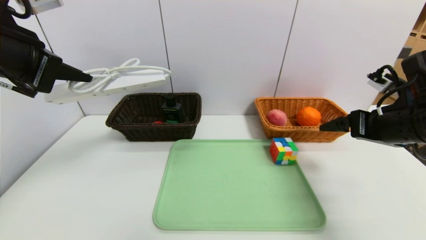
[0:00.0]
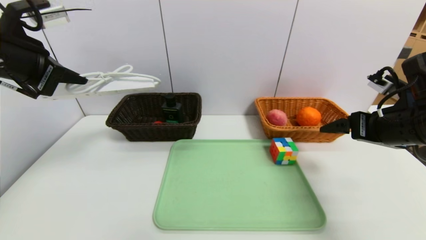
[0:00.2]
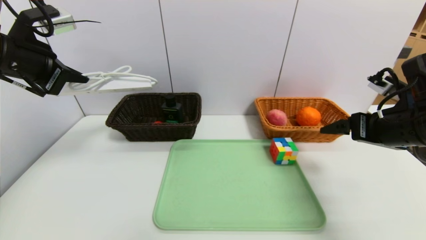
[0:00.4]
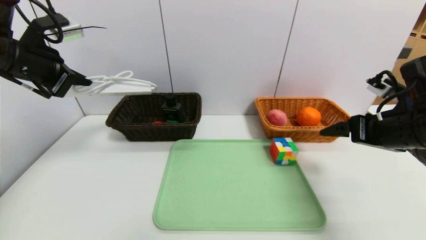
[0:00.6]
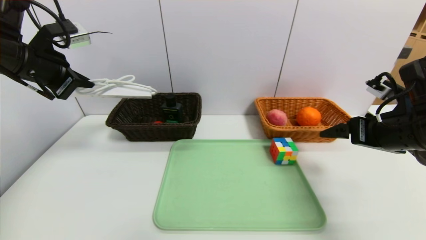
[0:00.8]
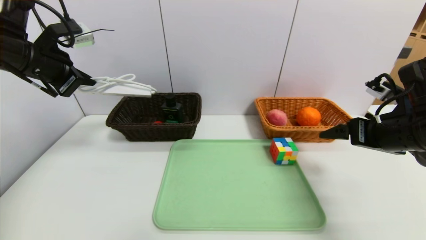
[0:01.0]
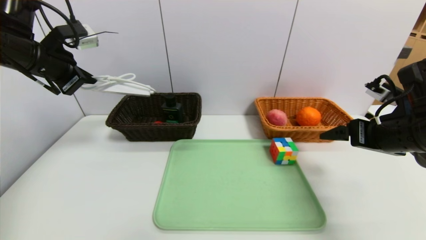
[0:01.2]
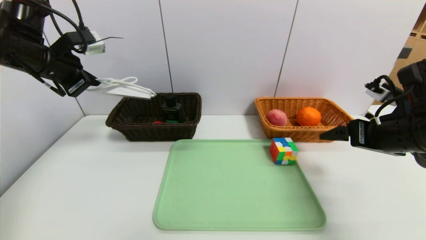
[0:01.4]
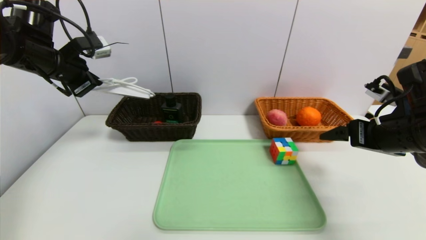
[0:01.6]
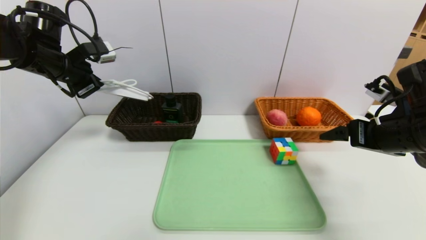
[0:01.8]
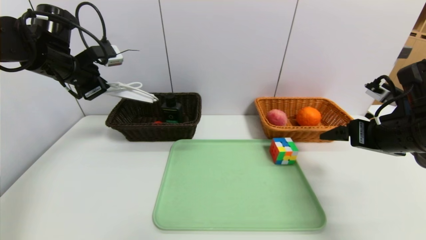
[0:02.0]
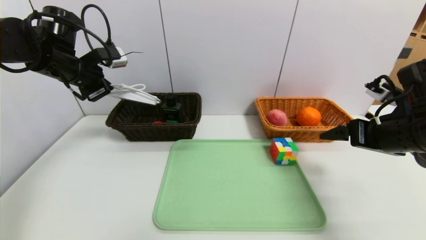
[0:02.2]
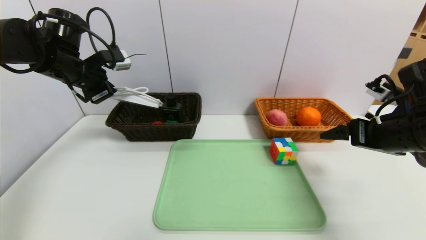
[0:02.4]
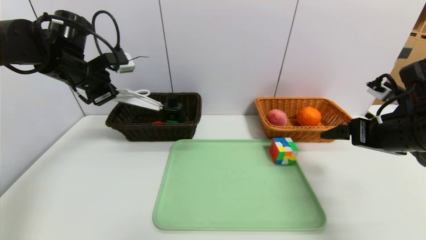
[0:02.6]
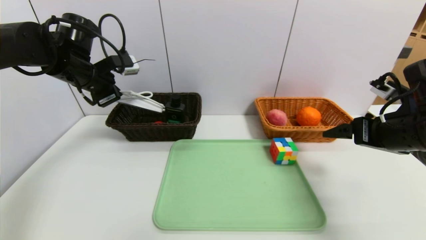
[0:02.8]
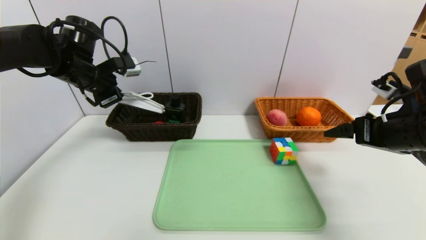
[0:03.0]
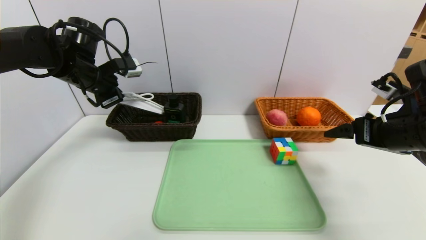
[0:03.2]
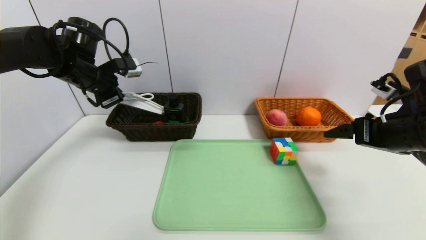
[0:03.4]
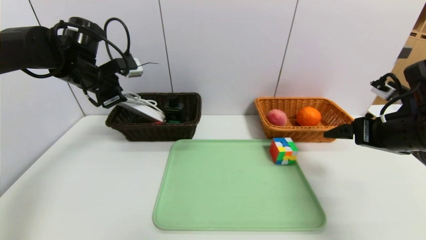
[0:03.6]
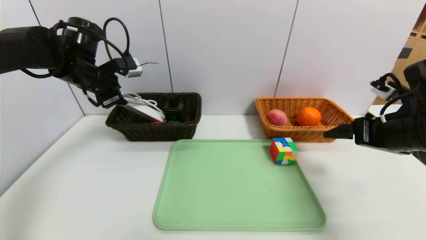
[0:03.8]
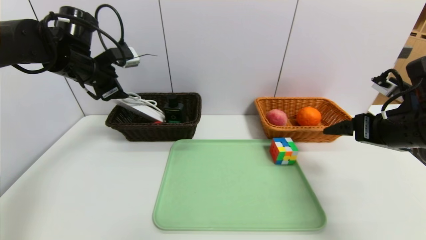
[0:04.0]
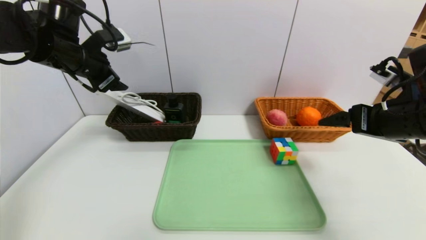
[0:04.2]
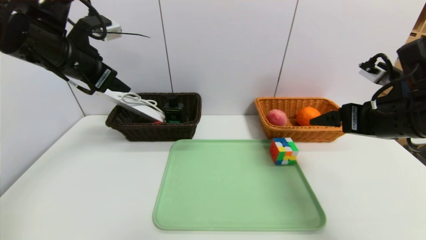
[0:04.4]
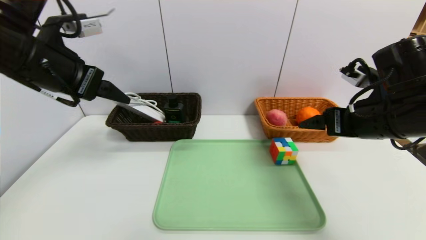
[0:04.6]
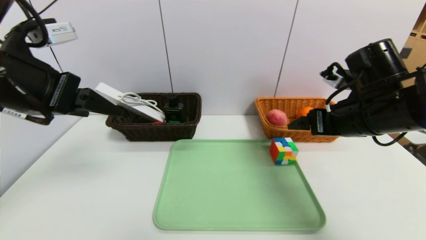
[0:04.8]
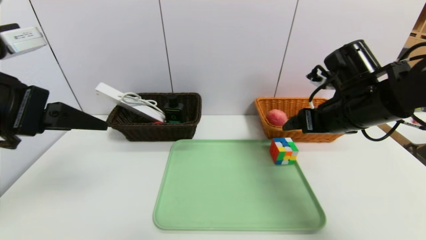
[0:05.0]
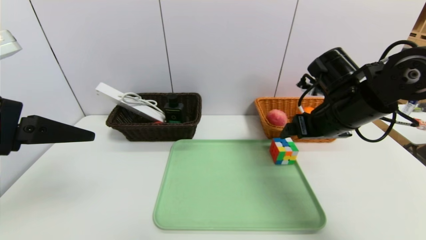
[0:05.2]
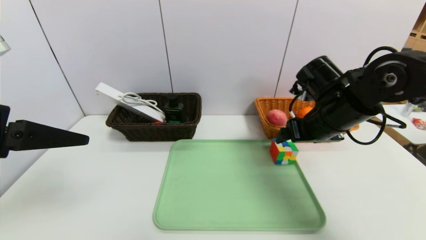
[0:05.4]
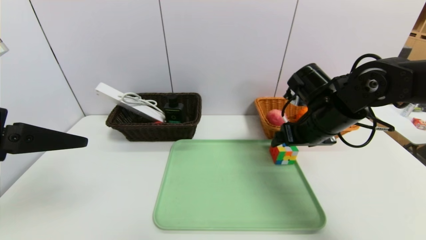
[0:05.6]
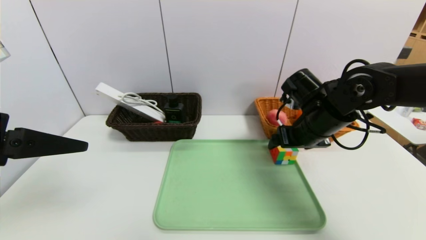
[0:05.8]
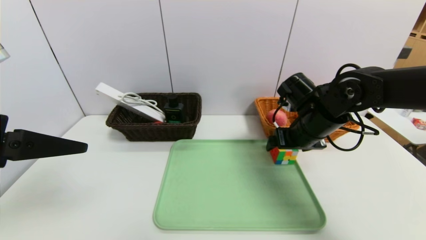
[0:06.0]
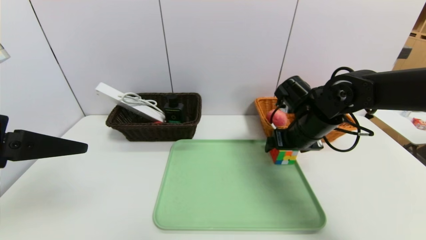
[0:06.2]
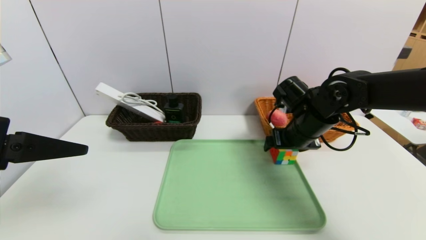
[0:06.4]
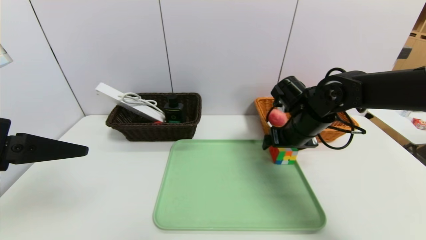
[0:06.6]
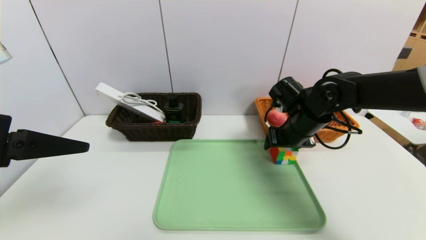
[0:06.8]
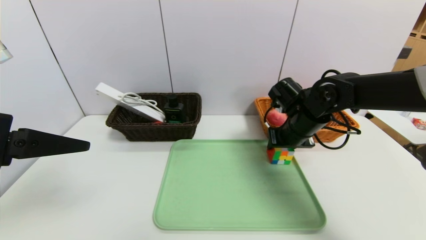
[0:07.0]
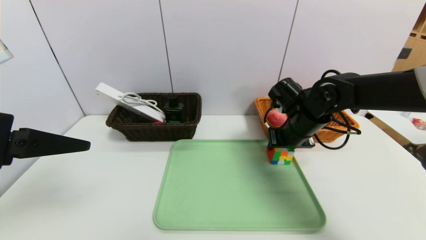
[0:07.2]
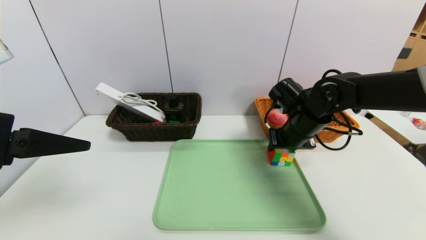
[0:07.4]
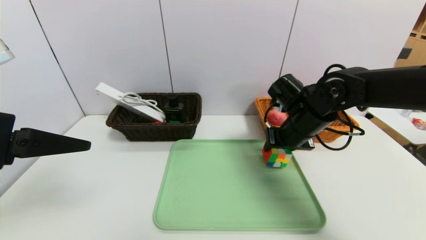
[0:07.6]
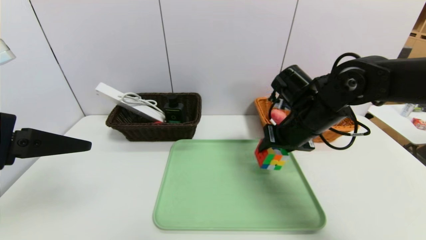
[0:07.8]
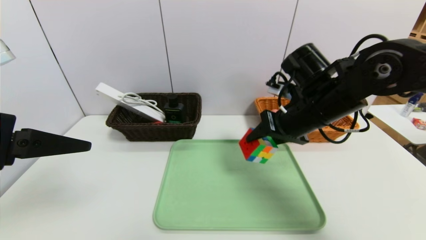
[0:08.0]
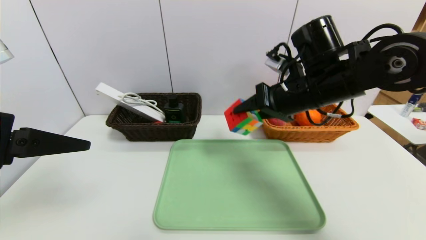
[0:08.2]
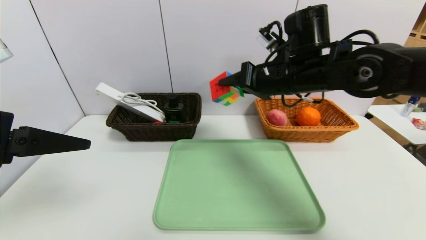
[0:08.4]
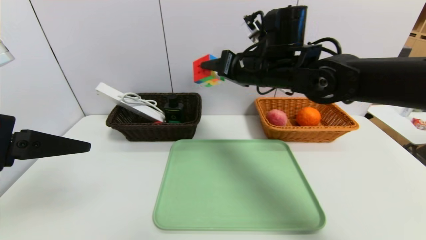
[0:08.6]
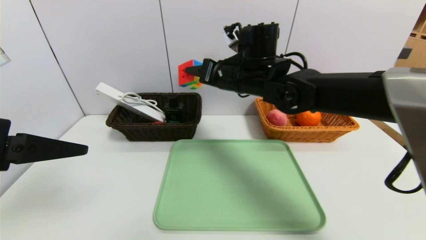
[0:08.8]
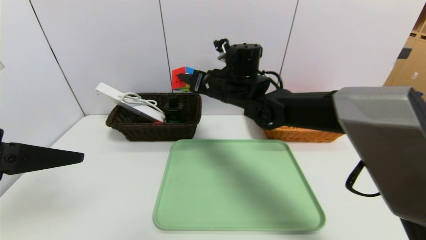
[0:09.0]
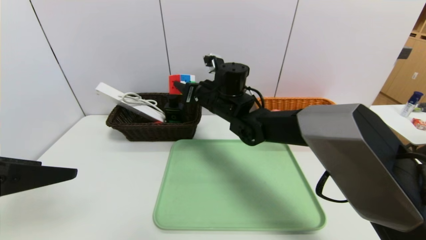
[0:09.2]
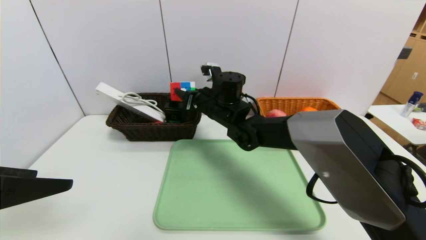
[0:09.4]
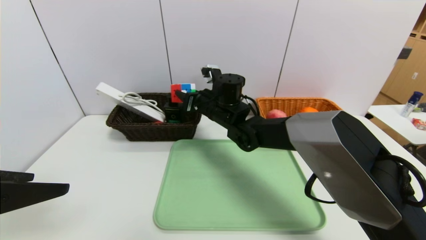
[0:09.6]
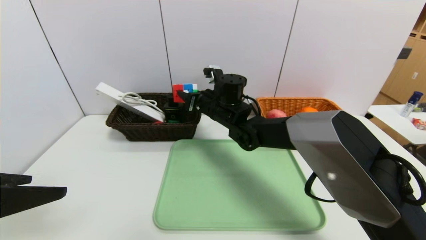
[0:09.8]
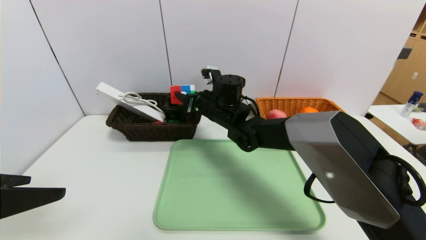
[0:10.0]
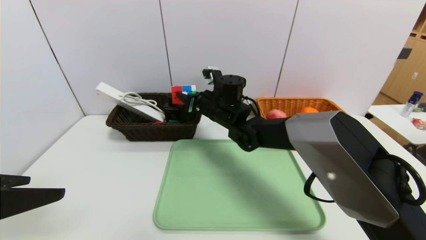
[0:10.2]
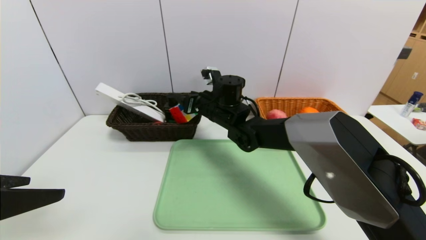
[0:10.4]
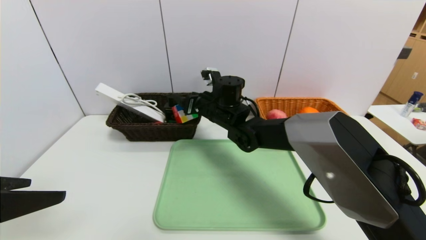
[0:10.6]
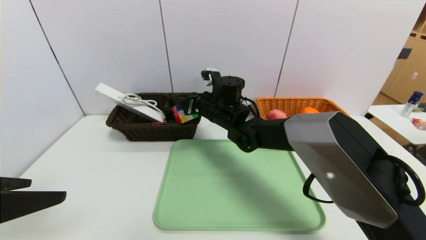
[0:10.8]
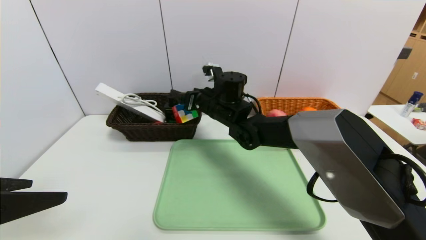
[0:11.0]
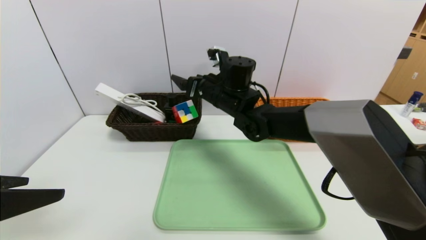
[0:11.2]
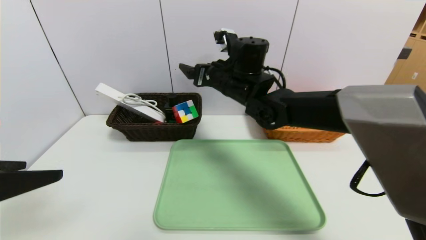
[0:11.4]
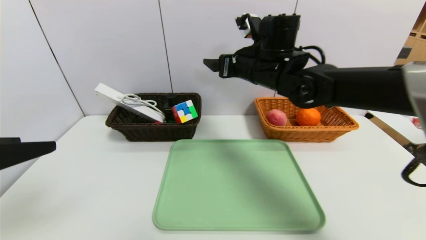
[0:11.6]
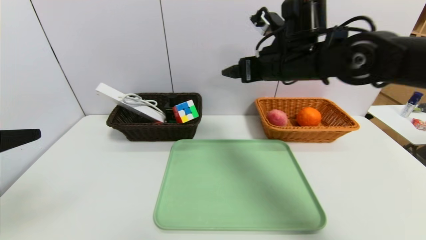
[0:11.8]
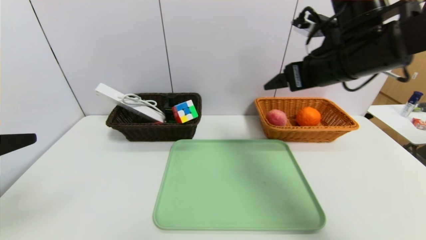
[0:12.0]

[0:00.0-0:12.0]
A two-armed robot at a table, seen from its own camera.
Task of the whole recording: place the food in the right basket with the right gripper, and place the non food items in the left basket with the left gripper.
Step, 0:00.0 to 0:03.8: Grasp the power strip and put it in the left basket.
Step, 0:04.0 to 0:10.6: Grasp the rubiks cube and put it in the left basket.
0:00.0 to 0:01.6: The left gripper is displaced forward by some 15 cm.
0:01.6 to 0:03.0: The left gripper ends up approximately 5 cm from where it was.
0:03.0 to 0:04.4: The left gripper goes some 10 cm backward and upward, and opens up.
0:04.4 to 0:06.0: The left gripper shifts some 20 cm backward; the right gripper is displaced forward, to the left and downward by some 15 cm.
0:06.0 to 0:07.6: The right gripper closes.
0:07.6 to 0:09.0: The right gripper shifts roughly 15 cm to the left.
0:09.0 to 0:10.4: The right gripper moves downward, roughly 5 cm.
0:10.4 to 0:12.0: The right gripper heads to the right, upward and backward, covering some 30 cm, and opens its fingers.

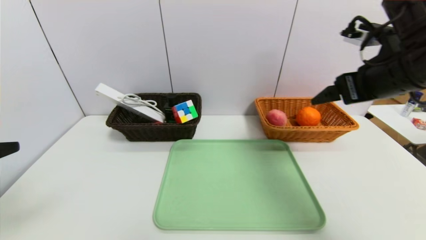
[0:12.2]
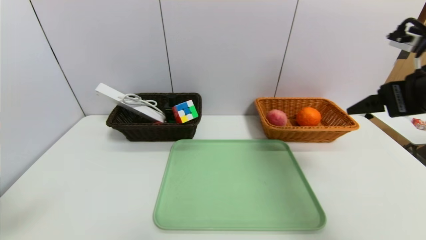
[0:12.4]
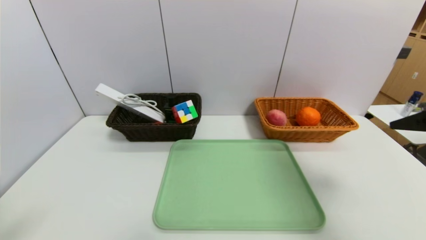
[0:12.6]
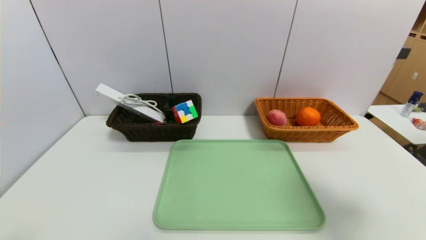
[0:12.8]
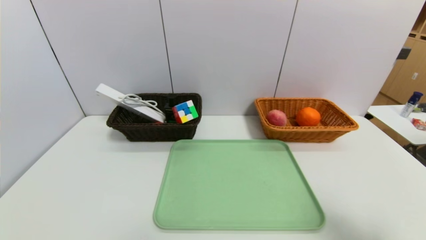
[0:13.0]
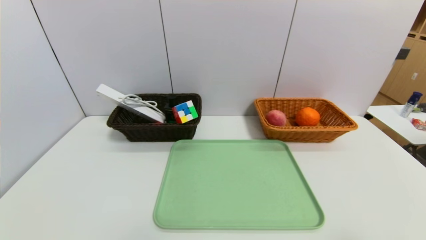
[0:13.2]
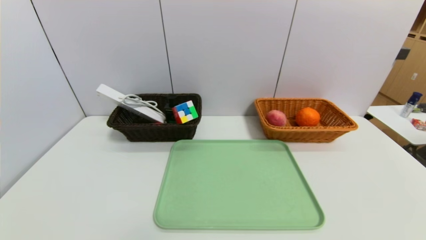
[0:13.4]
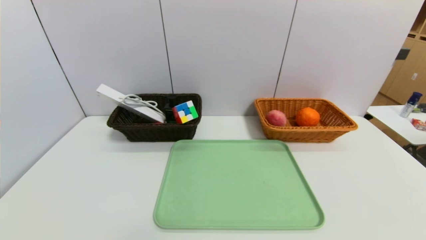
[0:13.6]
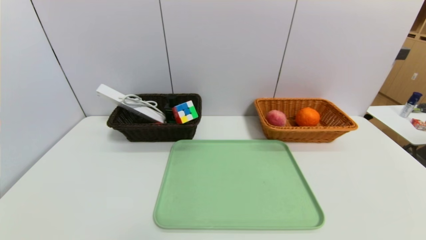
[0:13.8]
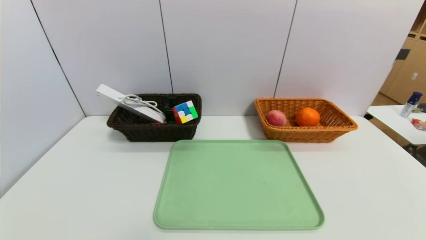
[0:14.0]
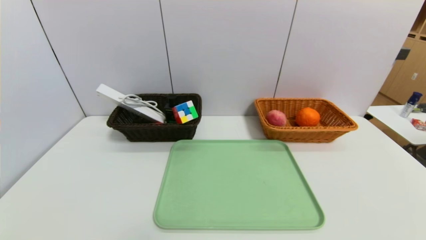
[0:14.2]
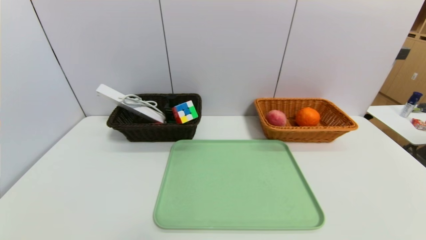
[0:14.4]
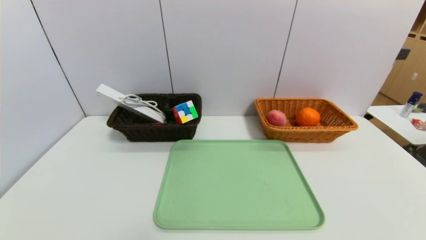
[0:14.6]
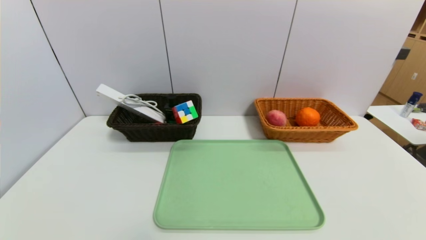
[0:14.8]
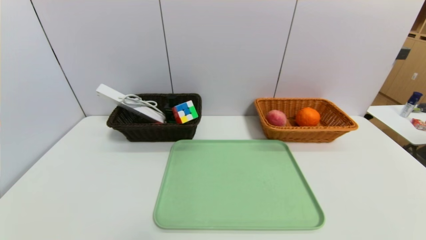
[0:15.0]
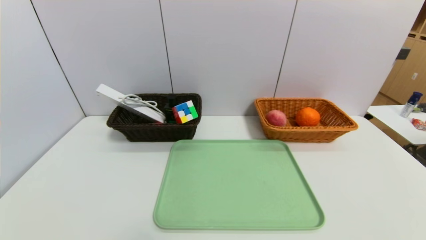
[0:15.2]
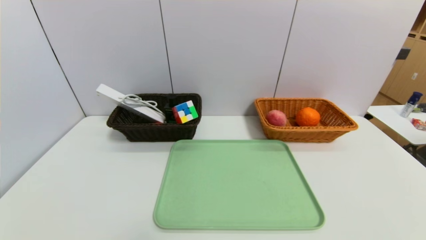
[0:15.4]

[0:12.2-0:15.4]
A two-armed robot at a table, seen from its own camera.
Task of the whole recording: place the food in the right basket with the right gripper, and place the non food items in the left basket with the left gripper.
0:12.2 to 0:13.8: The right gripper travels backward and downward by some 35 cm, while the left gripper is displaced backward and downward by approximately 20 cm.

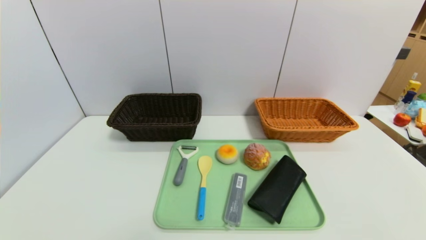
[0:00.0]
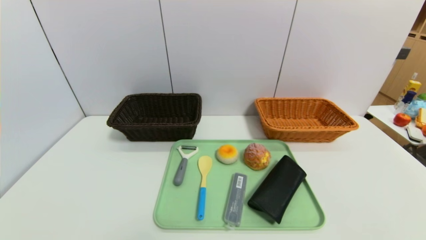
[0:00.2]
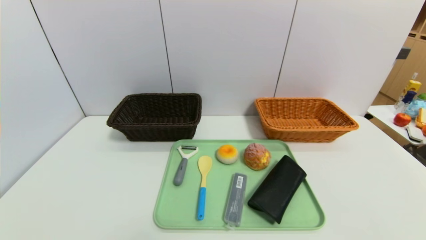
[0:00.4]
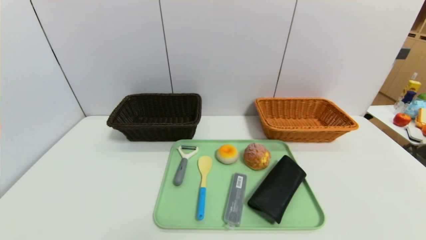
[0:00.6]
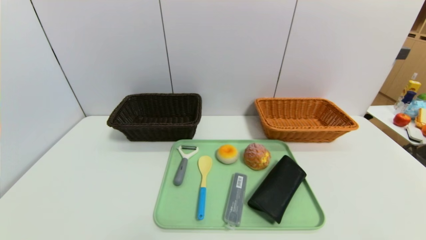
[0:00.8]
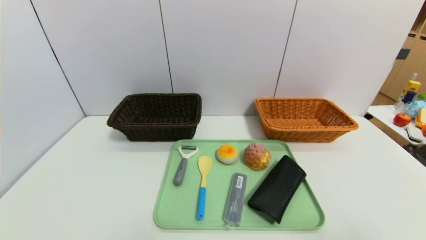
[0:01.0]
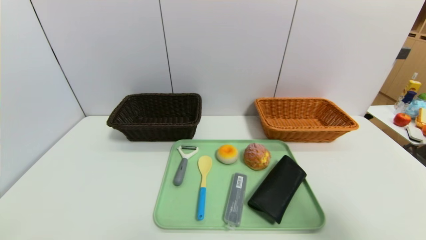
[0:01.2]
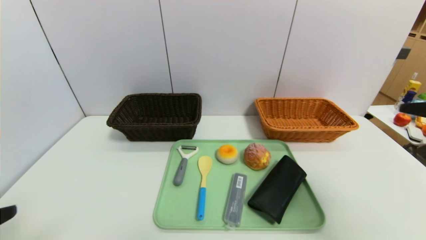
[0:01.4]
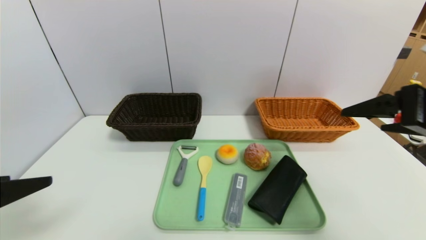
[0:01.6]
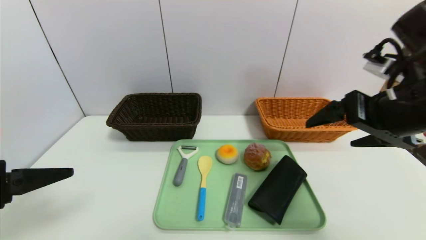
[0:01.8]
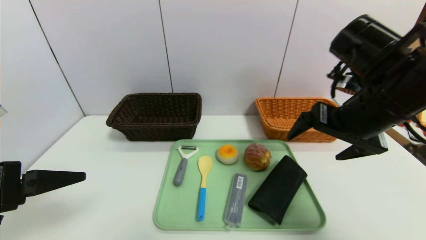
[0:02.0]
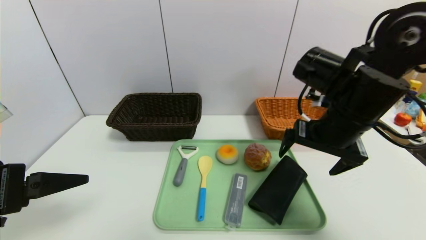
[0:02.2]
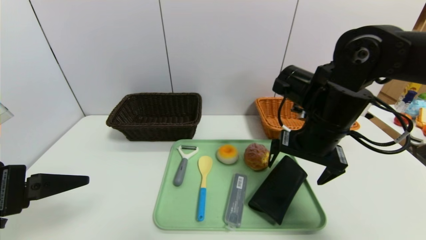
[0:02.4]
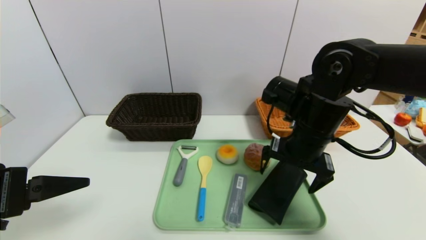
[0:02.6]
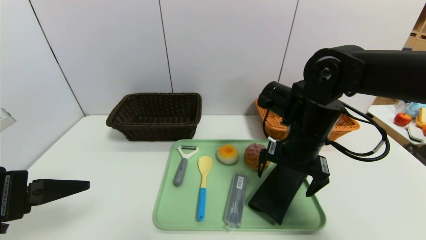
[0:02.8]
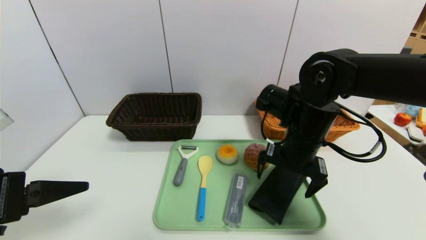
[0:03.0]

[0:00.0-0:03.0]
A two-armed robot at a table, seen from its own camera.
Task of the whole recording: place the food in the right basket with the right gripper, and place the non food items in the left basket with the left gripper.
0:00.0 to 0:01.6: The grippers both shift upward and forward by roughly 25 cm.
0:01.6 to 0:03.0: The right gripper is displaced to the left, forward and downward by about 20 cm.
